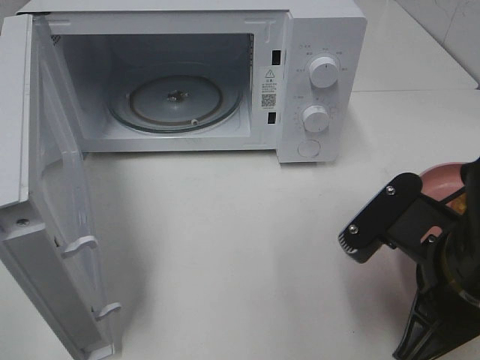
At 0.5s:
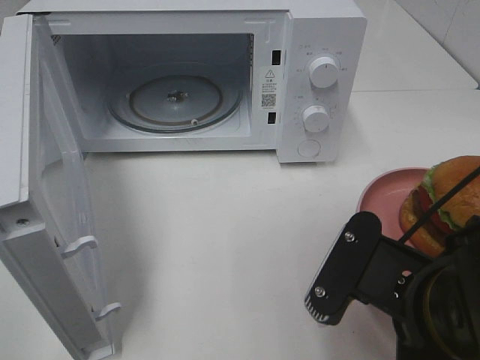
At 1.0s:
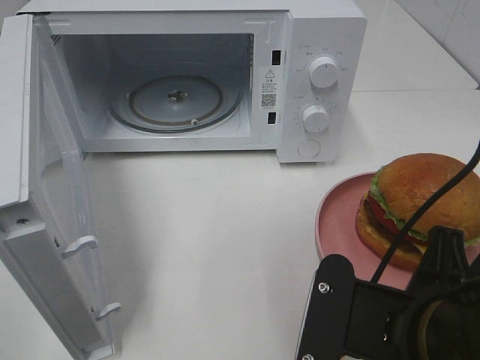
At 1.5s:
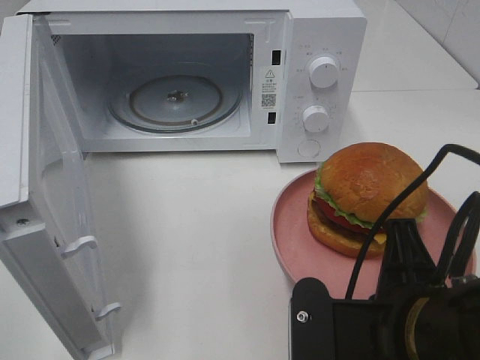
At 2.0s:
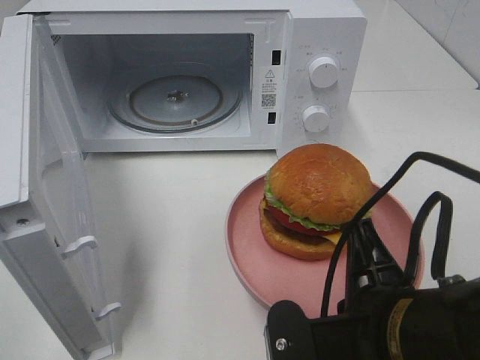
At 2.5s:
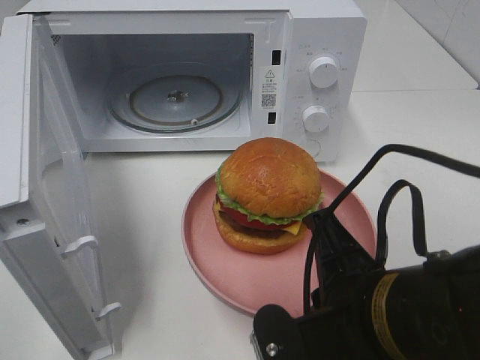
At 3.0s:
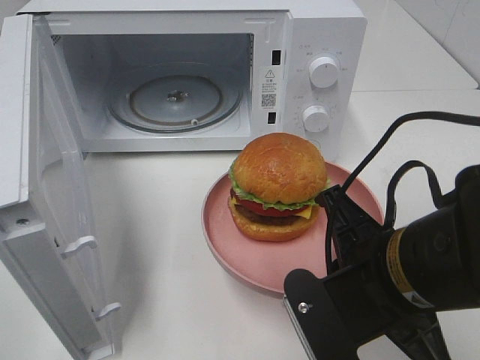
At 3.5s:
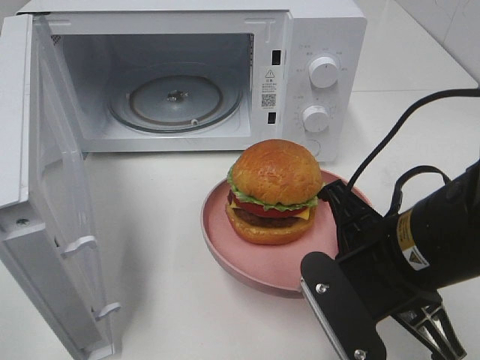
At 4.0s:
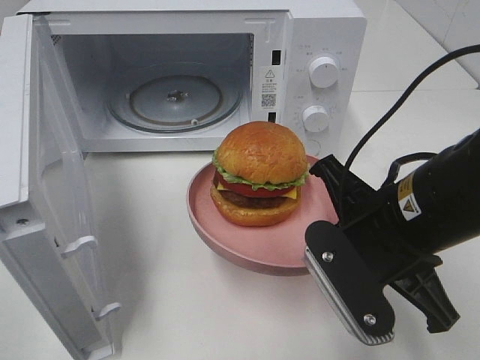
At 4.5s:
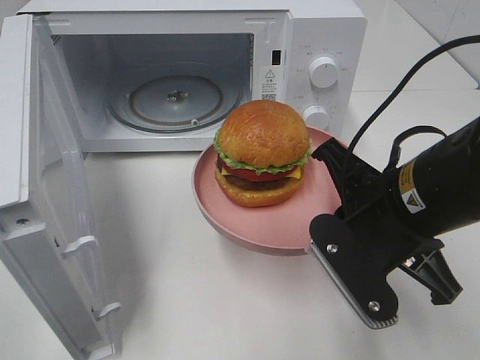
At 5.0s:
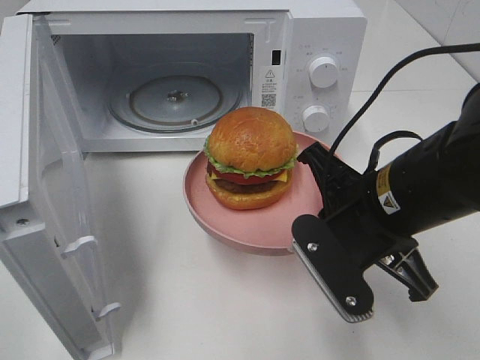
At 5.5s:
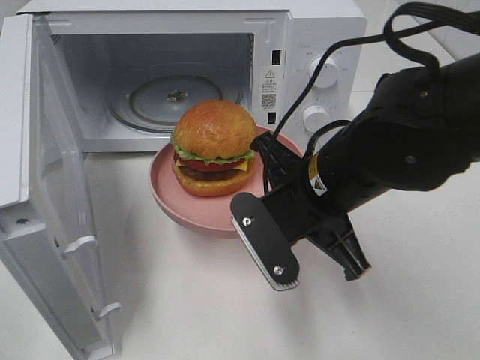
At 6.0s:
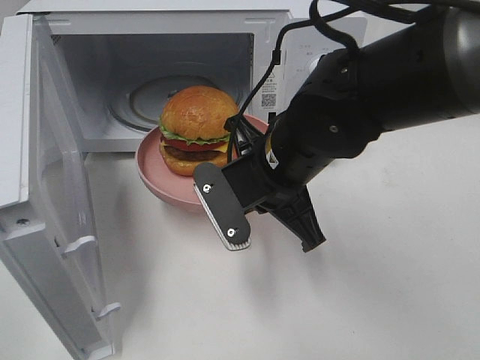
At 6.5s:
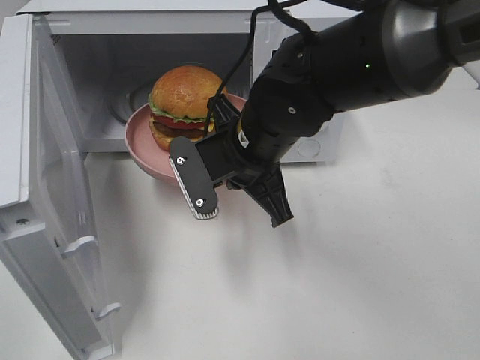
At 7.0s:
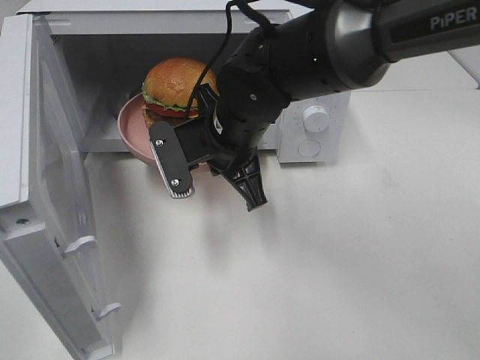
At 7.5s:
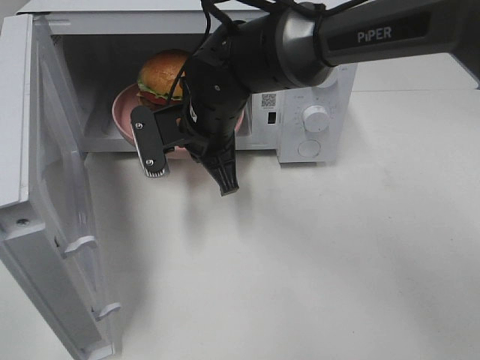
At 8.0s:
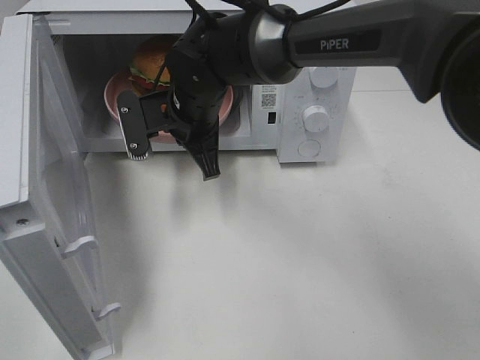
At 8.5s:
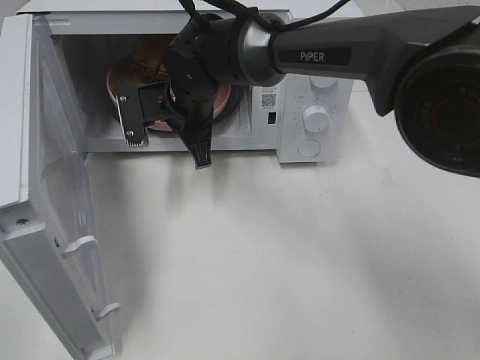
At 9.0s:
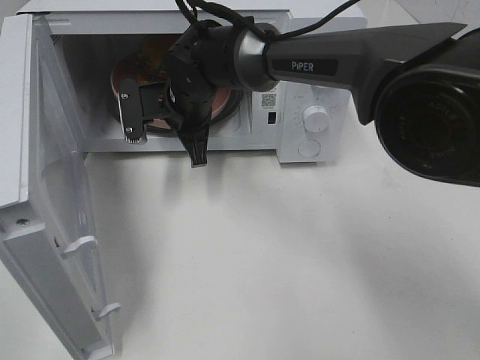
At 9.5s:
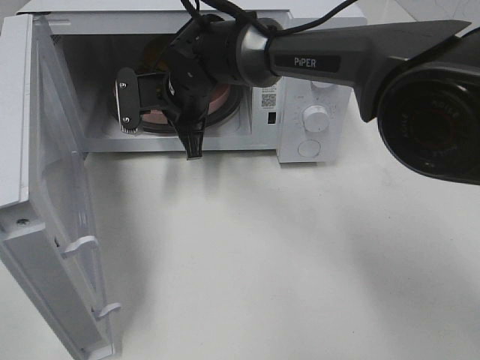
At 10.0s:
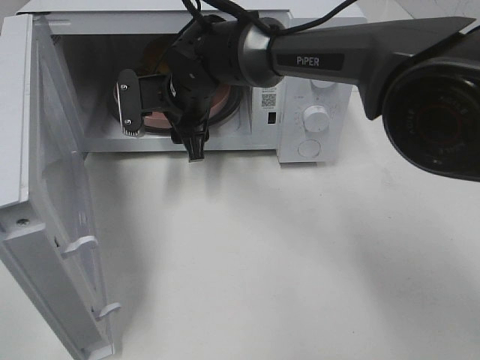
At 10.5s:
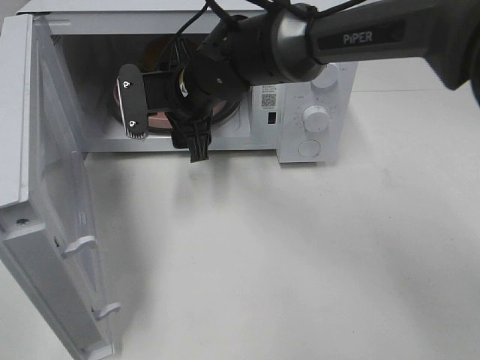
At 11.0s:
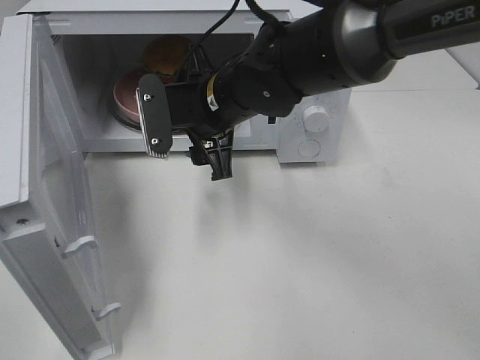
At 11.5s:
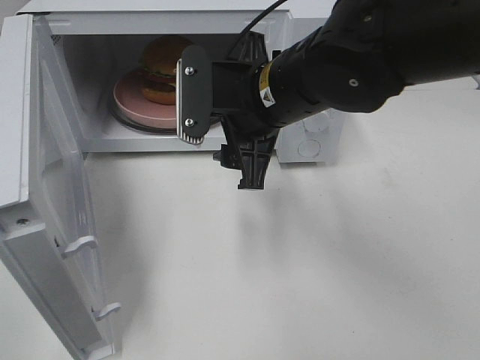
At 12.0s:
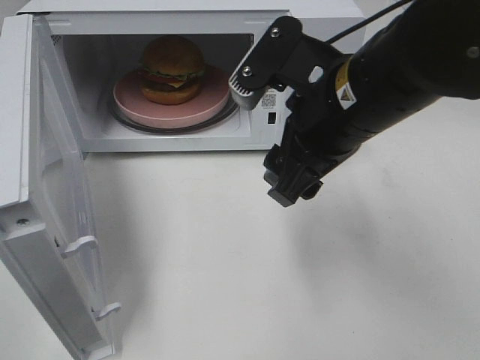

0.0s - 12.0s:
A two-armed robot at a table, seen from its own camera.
Task of the whole recording: Heat the burger.
Step, 0.0s - 9.5s: Right hand: place the plate in the microwave.
0.0s - 2.0s: The right gripper heads to the left and backward, covering roughly 10 cm.
2.0s - 4.0s: The right gripper is displaced forward by some 10 cm.
4.0s - 6.0s: The right gripper goes about 10 cm forward and to the left.
6.0s - 8.0s: The right gripper heads forward and to the left, covering roughly 15 cm.
8.0s - 10.0s: The right gripper opens its fingers.
10.0s - 12.0s: The right gripper moves backward, to the right and upward, roughly 25 cm.

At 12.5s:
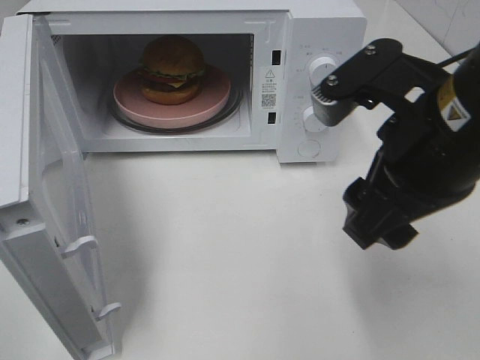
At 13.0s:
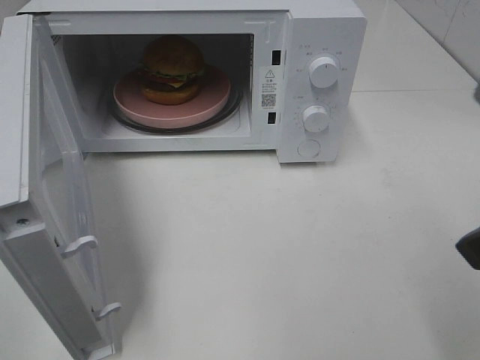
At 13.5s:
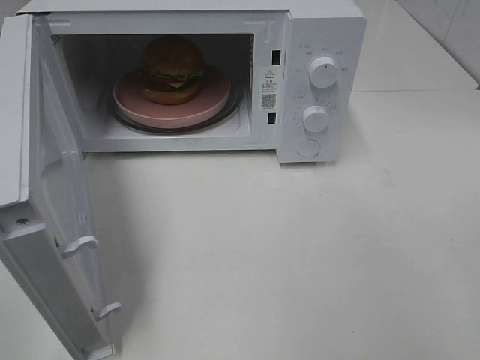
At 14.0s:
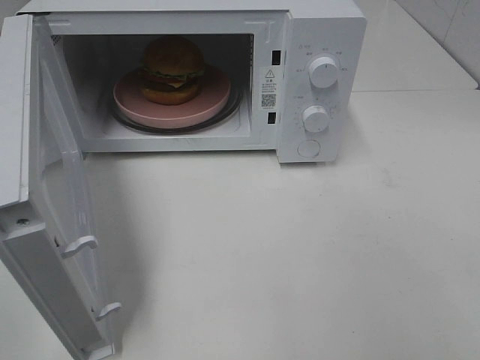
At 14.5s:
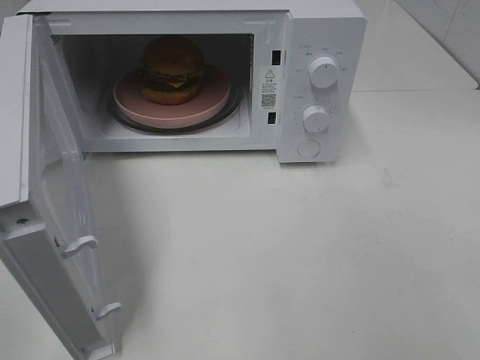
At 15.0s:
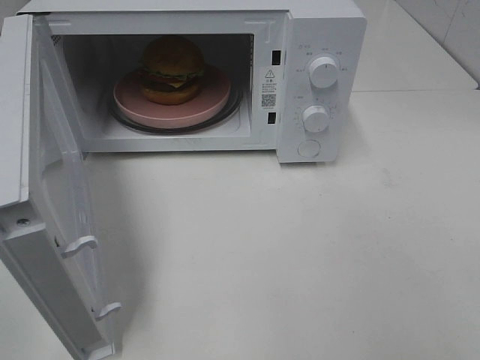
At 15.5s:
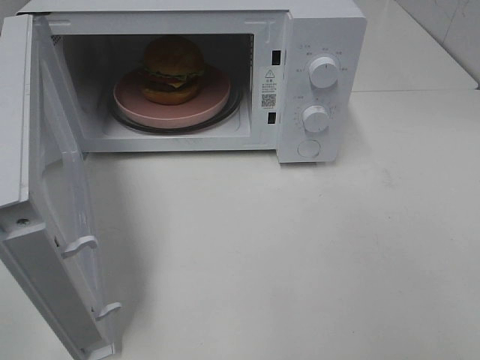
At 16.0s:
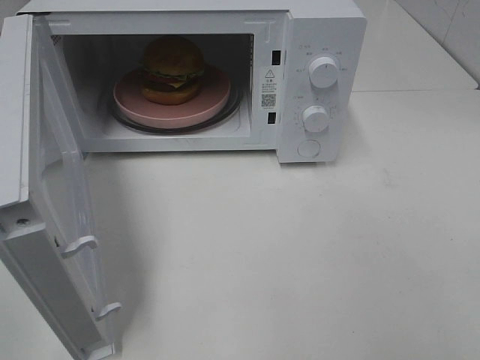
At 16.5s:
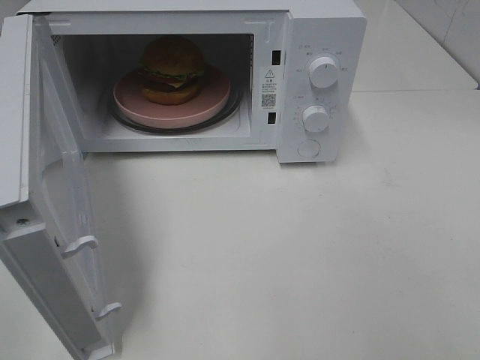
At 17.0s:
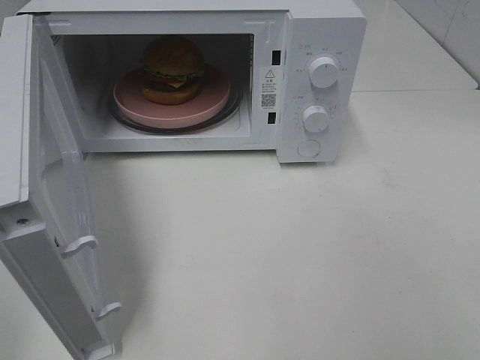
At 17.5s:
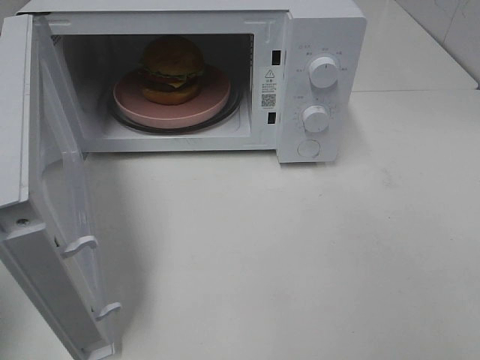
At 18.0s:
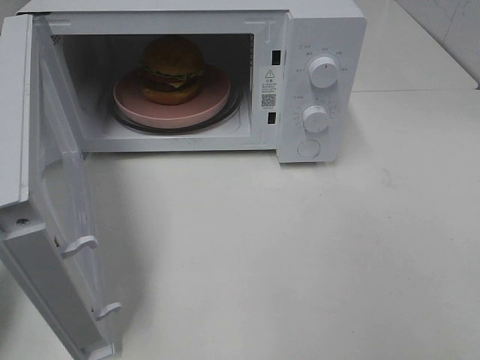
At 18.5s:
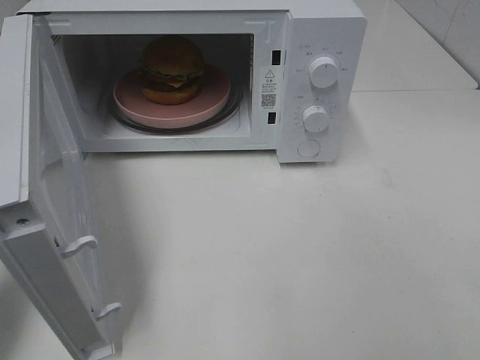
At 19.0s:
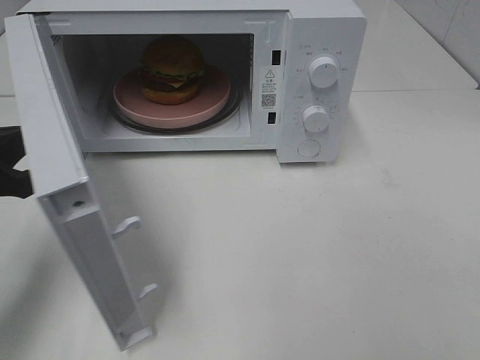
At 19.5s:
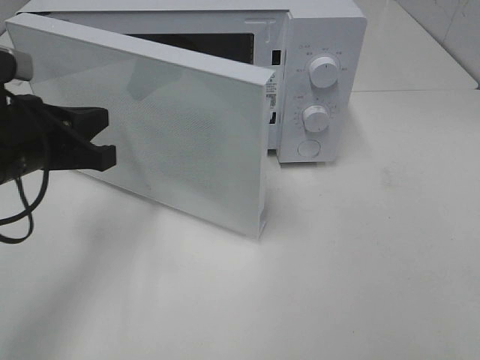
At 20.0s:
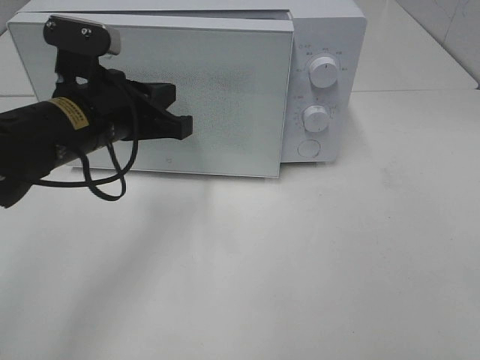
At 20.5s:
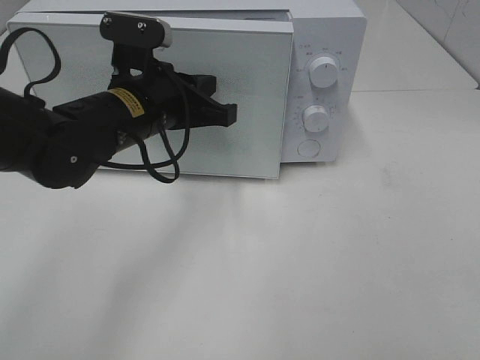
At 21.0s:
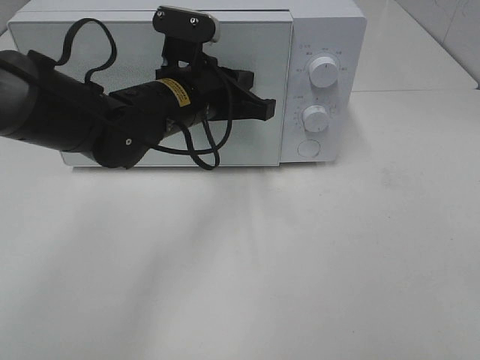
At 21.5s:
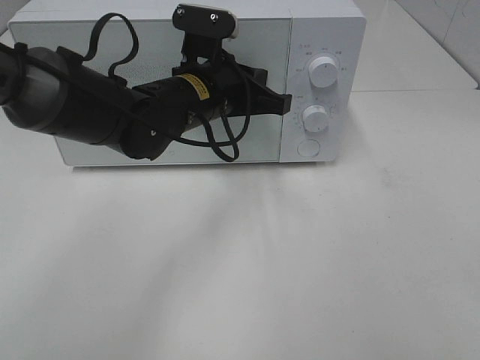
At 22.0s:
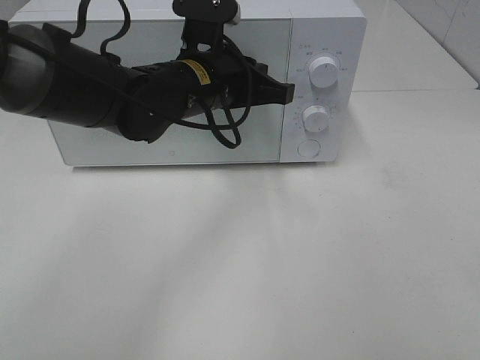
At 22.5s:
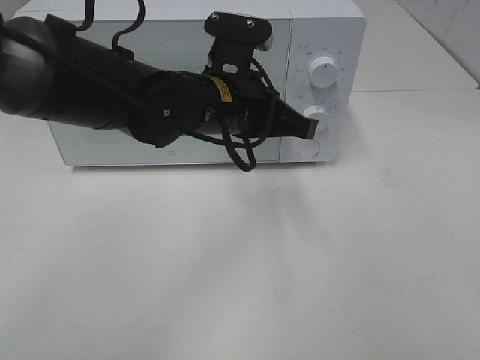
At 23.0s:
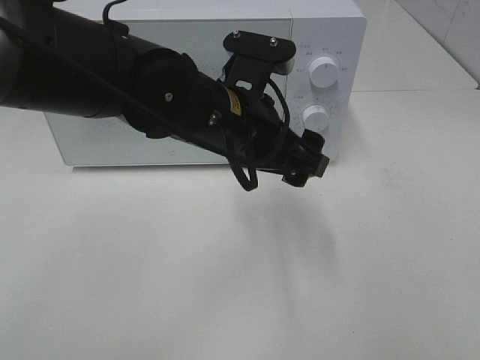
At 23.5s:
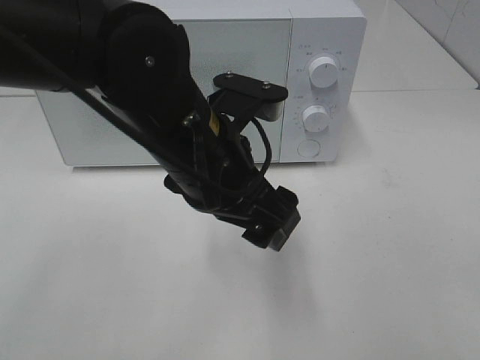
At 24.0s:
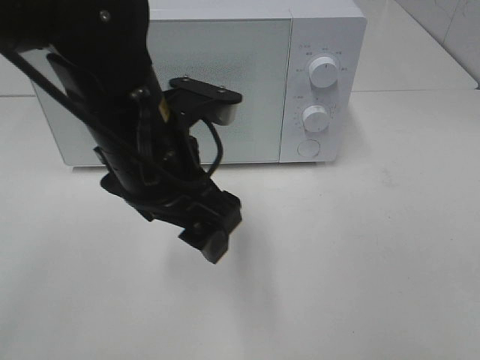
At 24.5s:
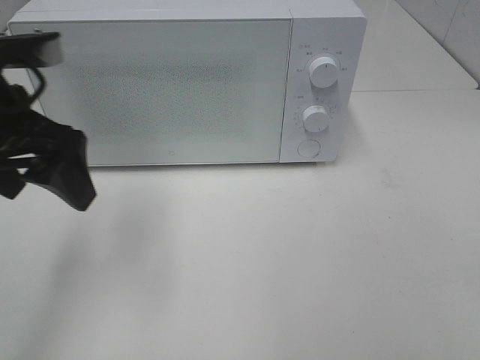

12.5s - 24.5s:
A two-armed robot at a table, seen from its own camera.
Task of the whole recording: Heat the burger.
Step, 12.5s - 22.0s: Left hand: close the microwave door.
12.5s - 14.5s: The right gripper goes roughly 25 cm backward and to the right.
14.5s - 16.5s: Both grippers stay about where they are.
16.5s - 18.5s: The left gripper moves forward, about 20 cm, and closes its fingers.
18.5s - 20.5s: The left gripper moves to the right and forward, some 25 cm.
20.5s - 22.5s: The left gripper shifts some 10 cm to the right.
22.5s - 24.5s: The left gripper shifts roughly 20 cm to the left, and opens up.

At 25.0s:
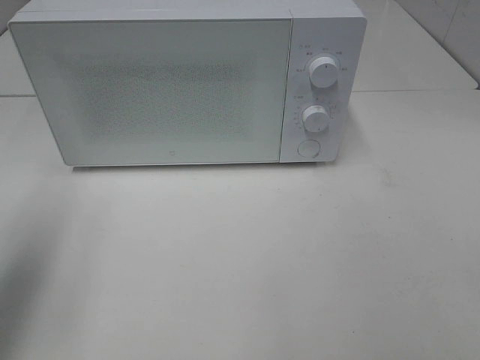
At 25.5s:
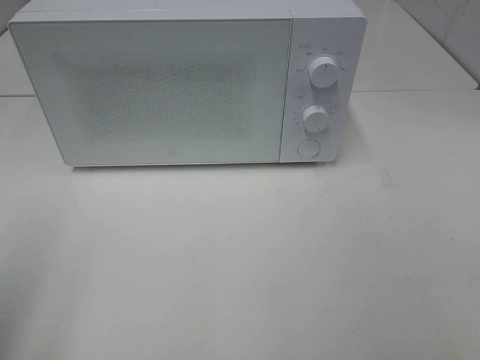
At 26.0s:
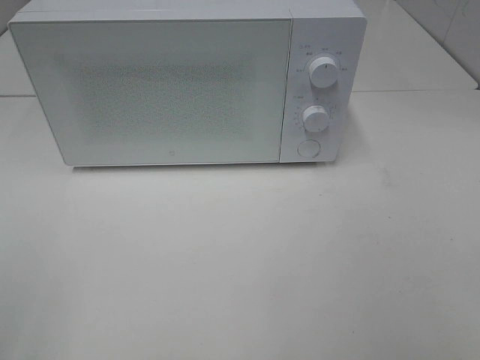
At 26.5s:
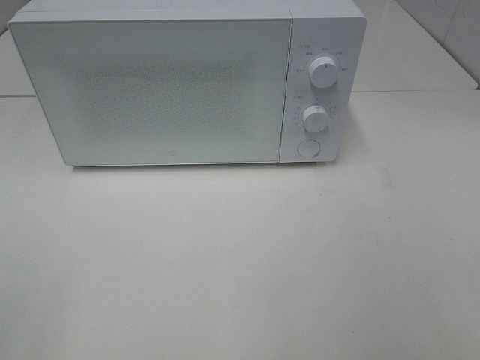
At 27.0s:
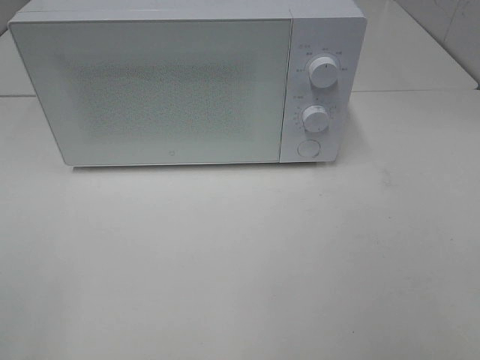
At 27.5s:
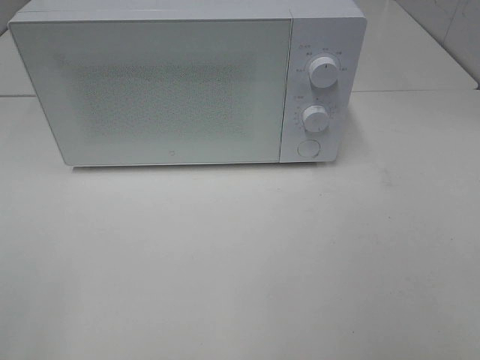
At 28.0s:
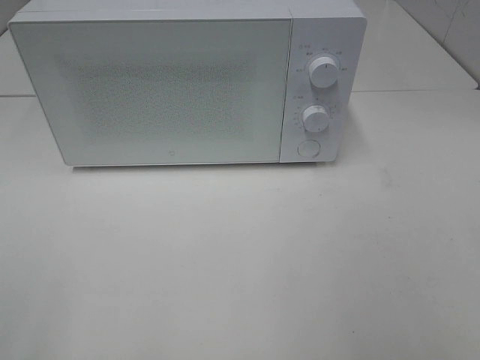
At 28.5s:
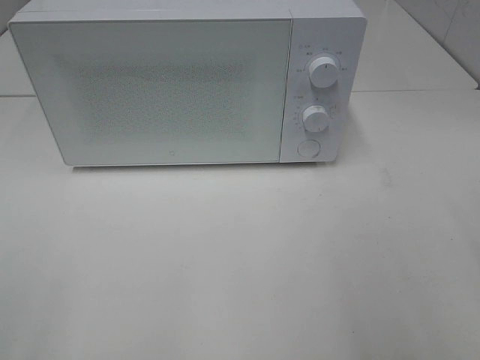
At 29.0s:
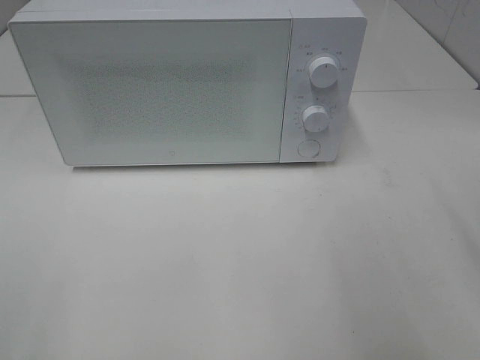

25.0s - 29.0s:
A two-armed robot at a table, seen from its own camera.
Task of the whole recording: Heat the burger.
25.0s - 27.0s: The left gripper moves backward, about 20 cm.
